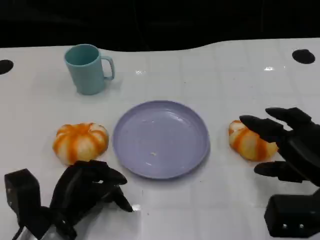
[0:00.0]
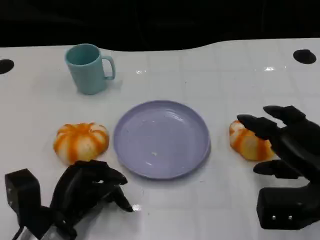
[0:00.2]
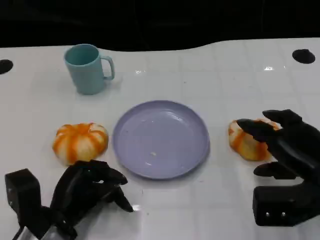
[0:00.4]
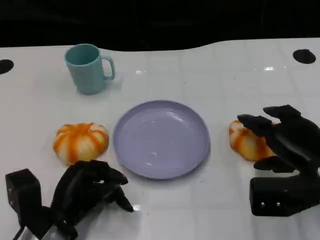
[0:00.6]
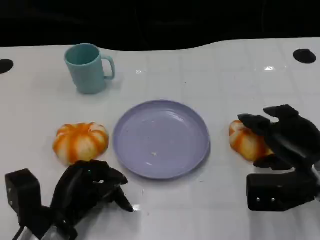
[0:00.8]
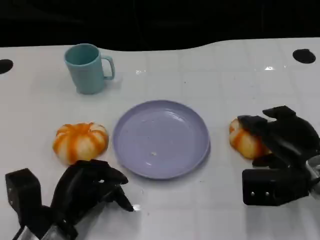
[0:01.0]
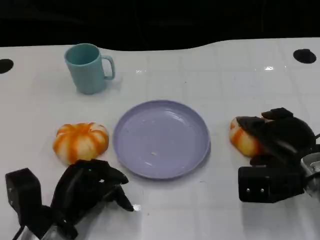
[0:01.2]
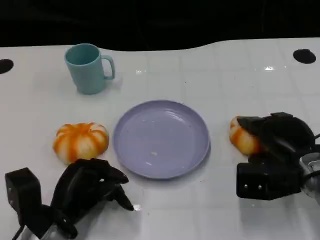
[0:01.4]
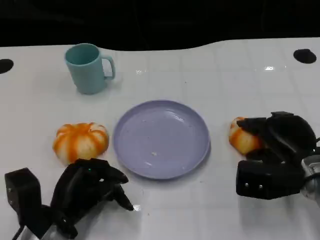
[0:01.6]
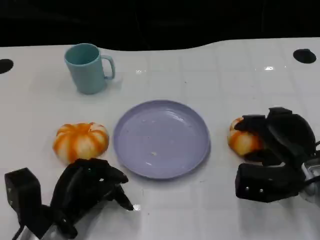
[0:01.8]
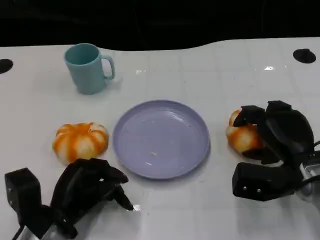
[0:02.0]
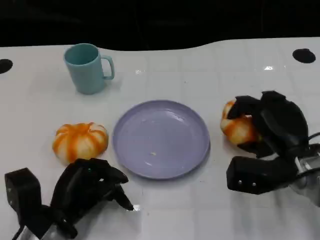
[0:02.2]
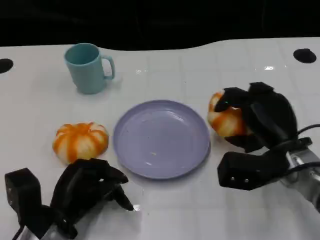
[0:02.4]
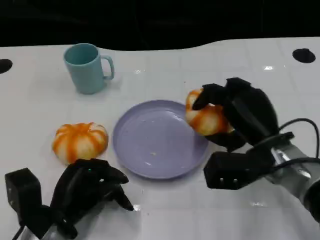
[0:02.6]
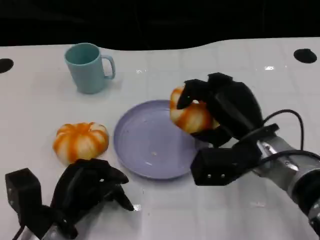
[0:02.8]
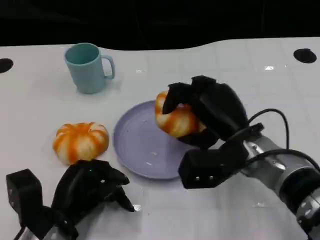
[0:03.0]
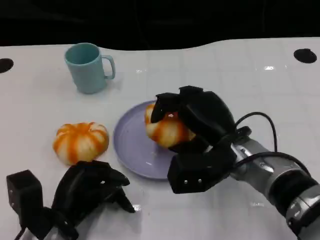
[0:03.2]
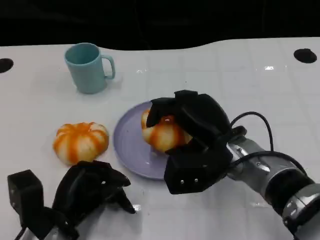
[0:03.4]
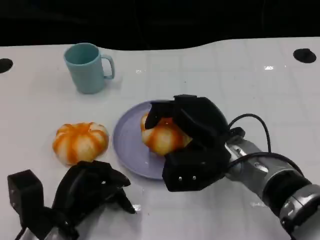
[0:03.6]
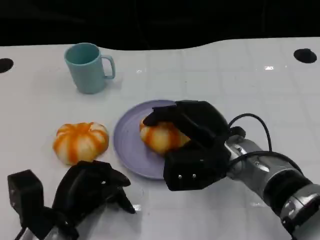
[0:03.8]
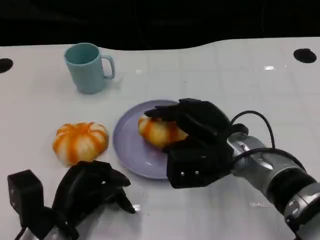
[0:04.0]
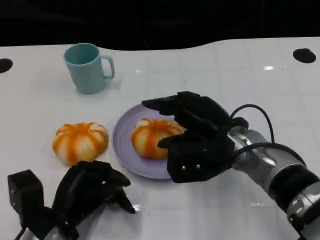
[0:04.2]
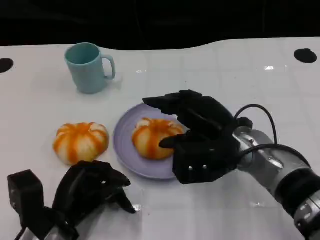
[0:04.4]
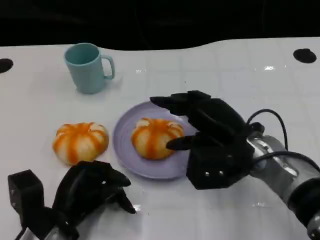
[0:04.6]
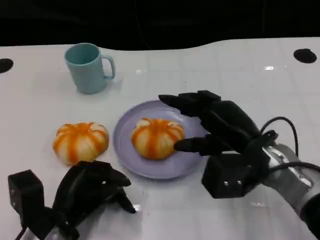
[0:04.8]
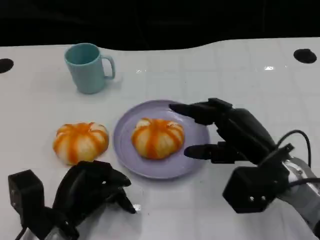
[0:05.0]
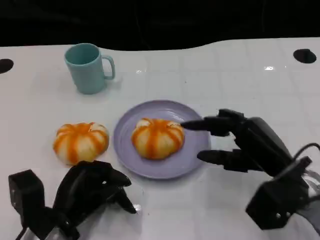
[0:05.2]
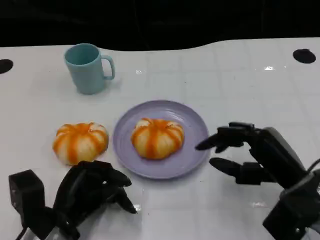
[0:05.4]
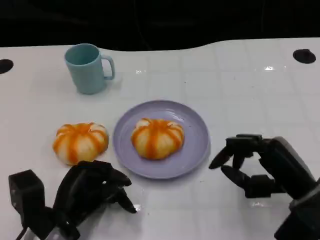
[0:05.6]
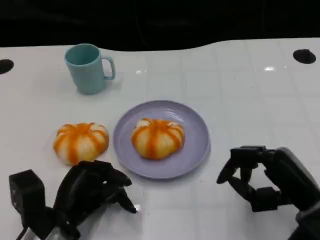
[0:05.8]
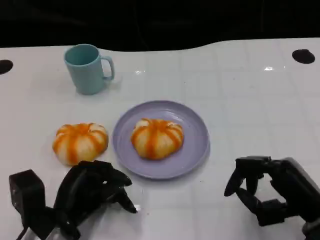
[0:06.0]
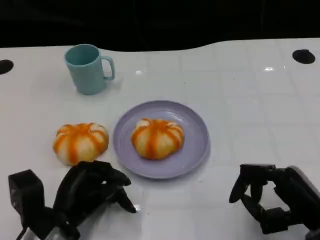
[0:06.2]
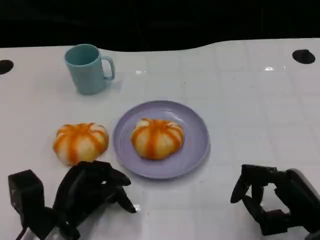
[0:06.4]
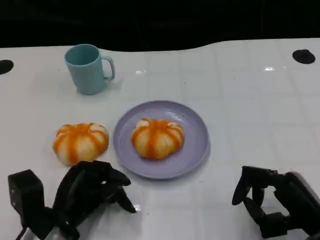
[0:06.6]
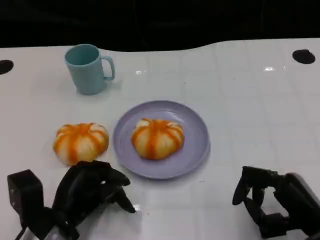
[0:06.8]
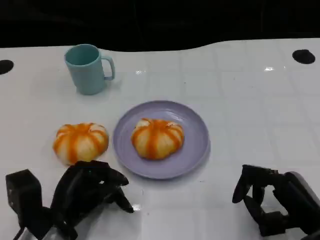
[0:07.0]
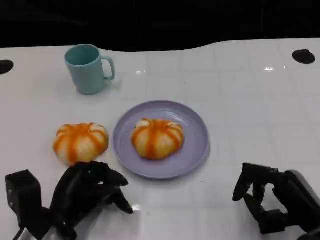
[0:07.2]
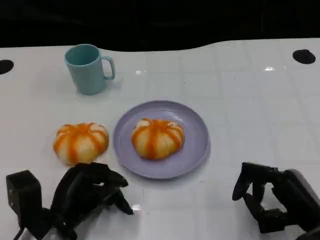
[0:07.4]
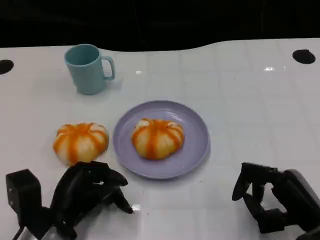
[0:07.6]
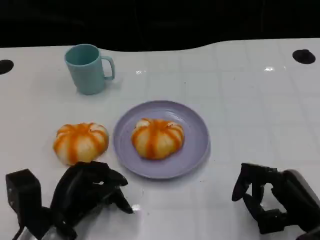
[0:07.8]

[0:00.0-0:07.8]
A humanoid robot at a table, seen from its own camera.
Task of the whole recording: Grasp the bread from the table and place it into the plate.
0:00.0 to 0:01.6: The right hand goes approximately 5 cm forward.
0:01.6 to 0:03.2: The right hand travels to the left by roughly 10 cm.
0:03.2 to 0:04.6: The hands stay close to where they were, moving slightly.
0:04.6 to 0:06.2: The right hand travels to the right, backward and downward by roughly 15 cm.
0:06.2 to 0:07.8: The hands move only a little.

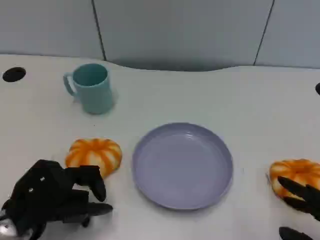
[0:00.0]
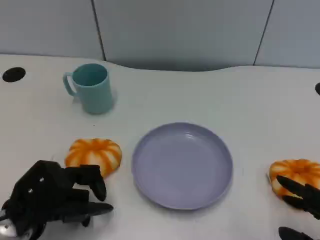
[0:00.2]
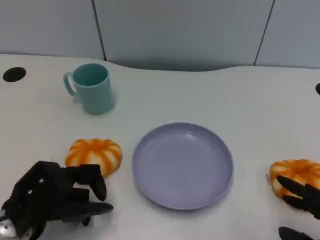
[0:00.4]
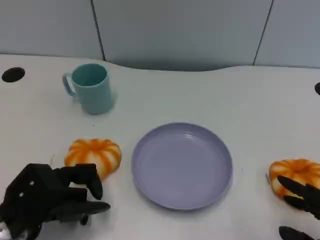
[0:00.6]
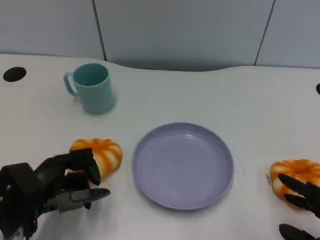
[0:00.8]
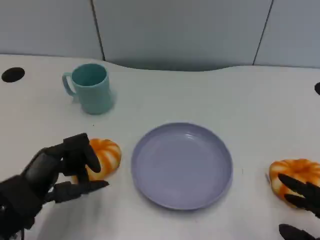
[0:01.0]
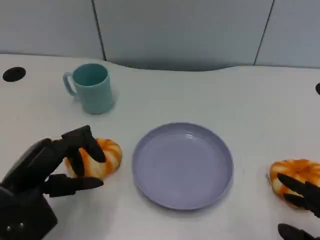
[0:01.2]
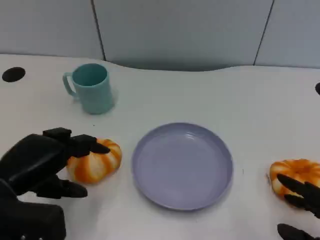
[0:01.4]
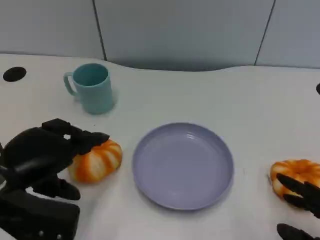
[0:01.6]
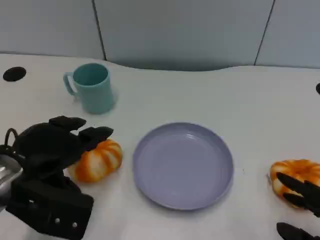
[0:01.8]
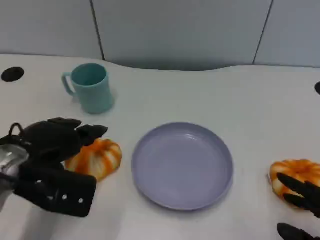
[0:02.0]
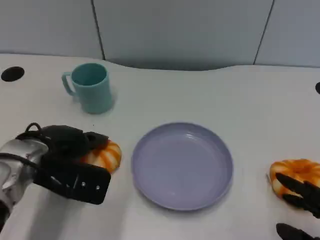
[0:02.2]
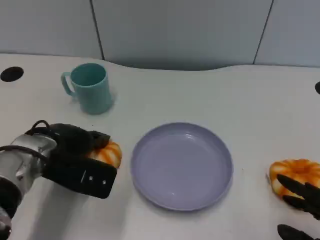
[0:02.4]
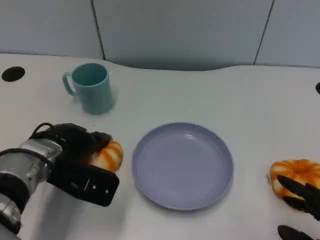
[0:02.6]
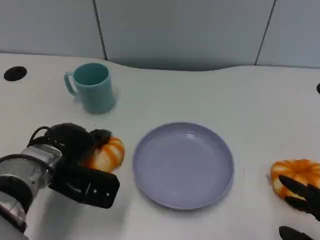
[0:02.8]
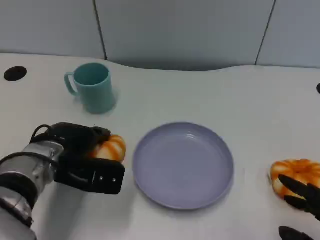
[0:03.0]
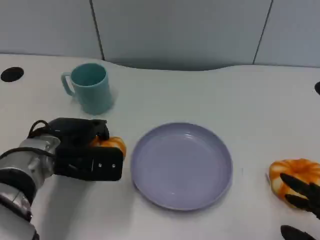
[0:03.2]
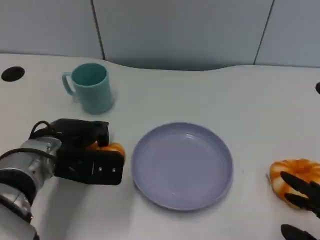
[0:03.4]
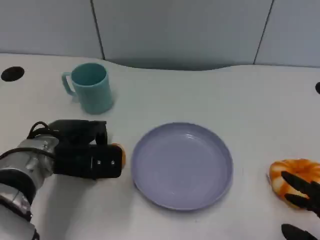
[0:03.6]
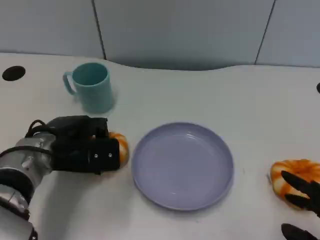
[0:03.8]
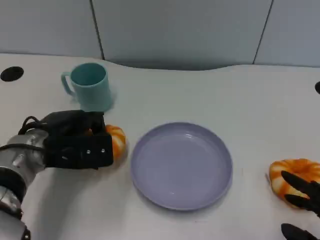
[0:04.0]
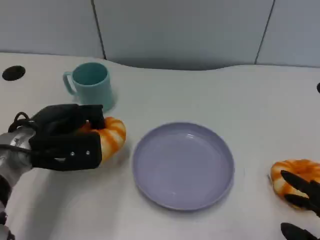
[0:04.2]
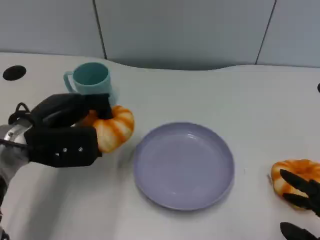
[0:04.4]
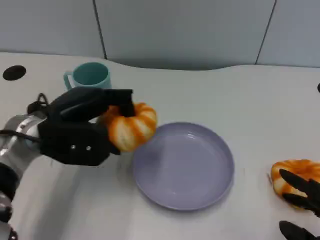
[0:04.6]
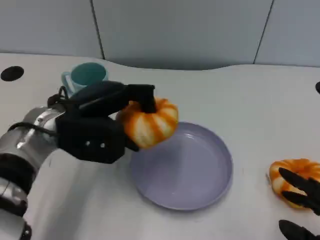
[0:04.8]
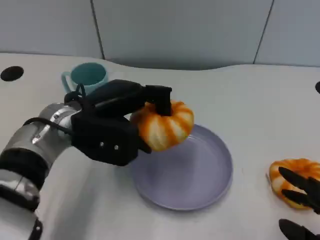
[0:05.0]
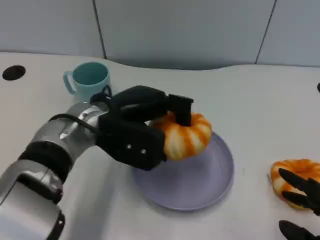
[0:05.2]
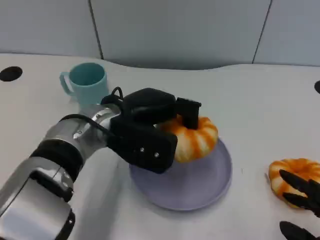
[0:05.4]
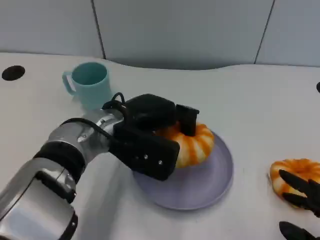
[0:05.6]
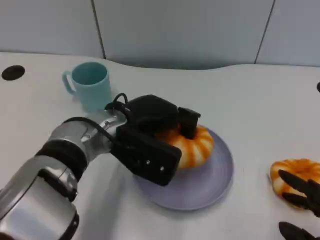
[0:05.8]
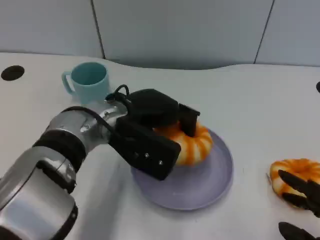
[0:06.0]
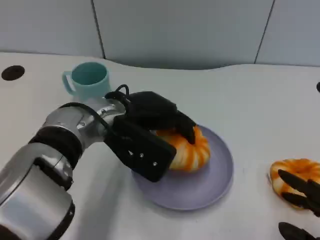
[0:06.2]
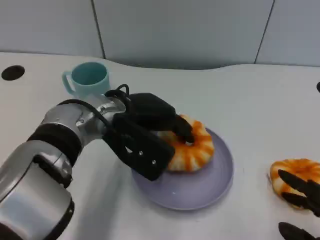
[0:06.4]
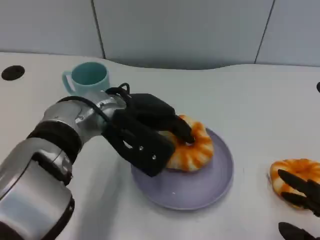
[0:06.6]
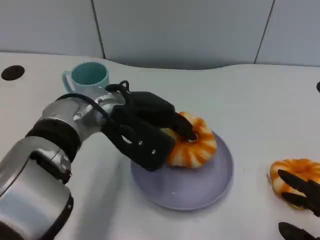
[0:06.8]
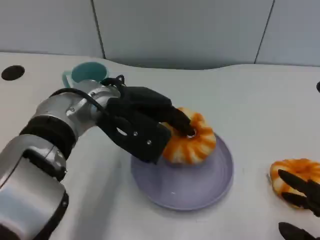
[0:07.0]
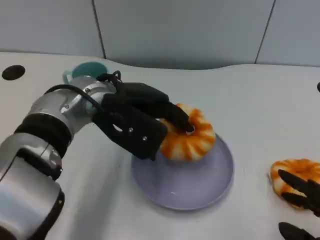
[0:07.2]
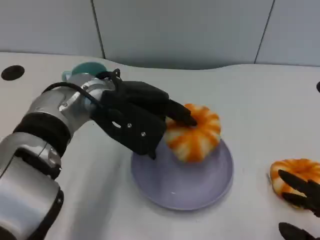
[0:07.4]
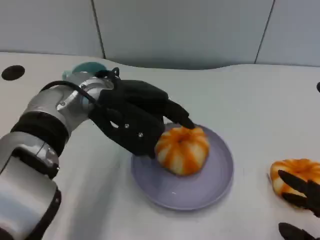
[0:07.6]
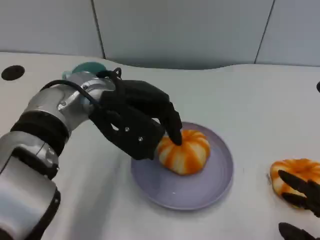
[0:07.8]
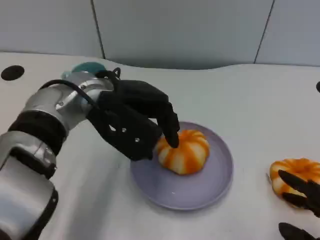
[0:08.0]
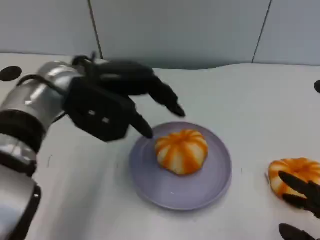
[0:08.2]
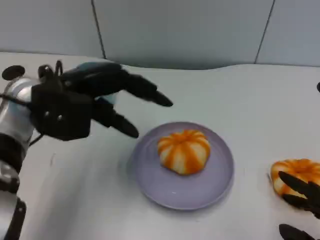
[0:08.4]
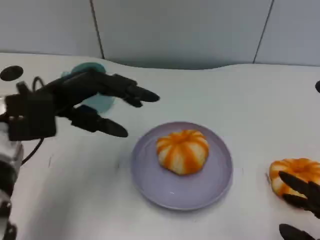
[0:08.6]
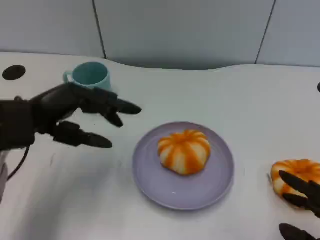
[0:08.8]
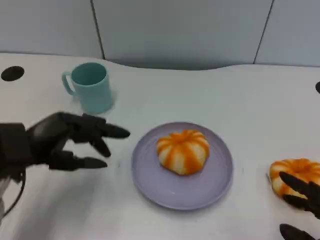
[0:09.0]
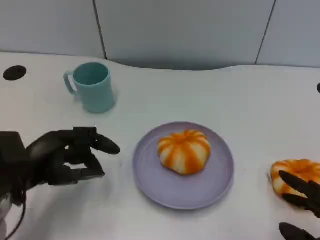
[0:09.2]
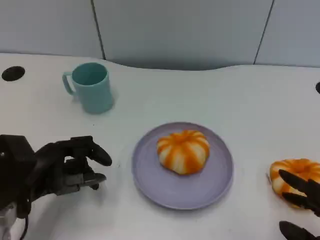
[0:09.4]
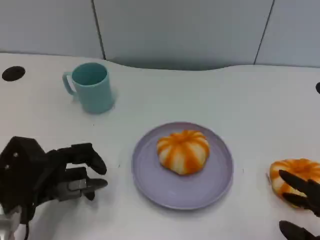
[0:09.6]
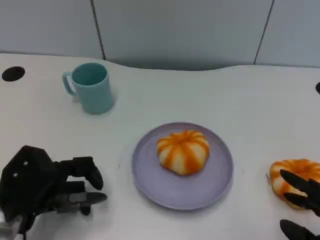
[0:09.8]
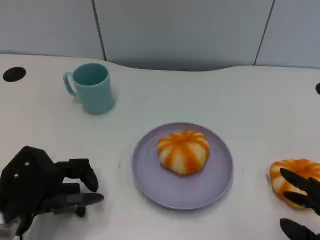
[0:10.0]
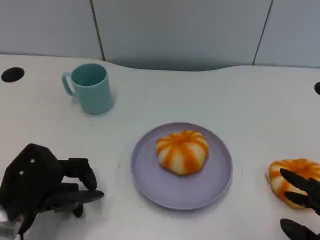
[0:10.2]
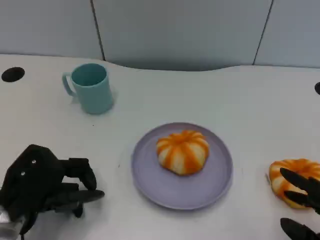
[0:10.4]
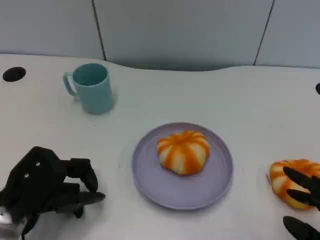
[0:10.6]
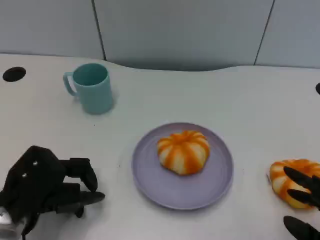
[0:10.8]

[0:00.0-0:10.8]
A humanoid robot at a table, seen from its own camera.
Task of the whole recording: Grasp the bread from the table and place it into the plate.
0:00.0 to 0:01.6: The left hand moves upward, about 5 cm.
0:01.6 to 0:03.0: The left hand travels forward, to the right and downward by about 10 cm.
0:03.0 to 0:04.6: The left hand moves upward, about 5 cm.
0:04.6 to 0:06.2: The left hand heads to the right, covering some 10 cm.
0:06.2 to 0:07.8: There are only small adjustments of the hands.
0:07.8 to 0:09.2: The left hand shifts roughly 20 cm to the left, downward and backward.

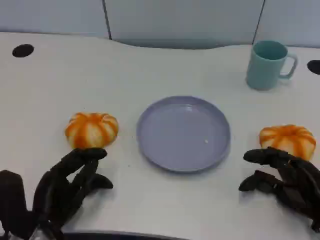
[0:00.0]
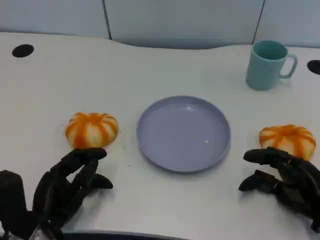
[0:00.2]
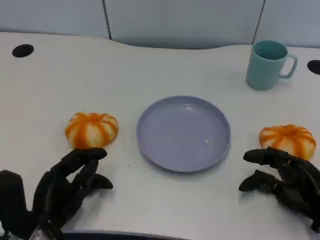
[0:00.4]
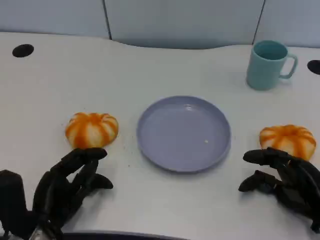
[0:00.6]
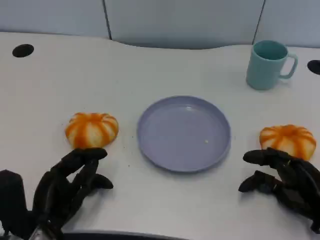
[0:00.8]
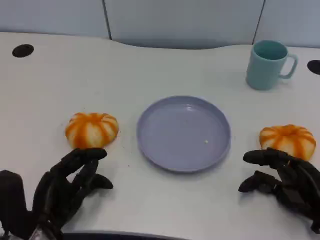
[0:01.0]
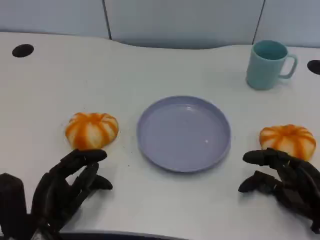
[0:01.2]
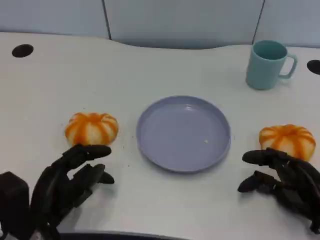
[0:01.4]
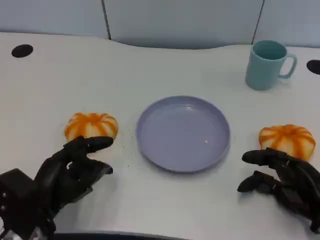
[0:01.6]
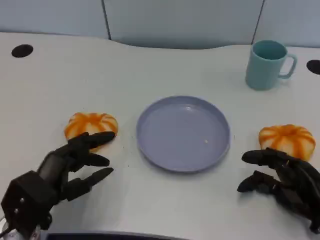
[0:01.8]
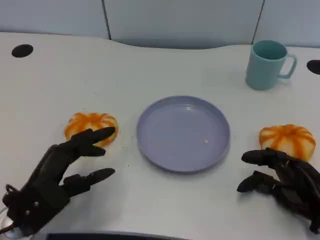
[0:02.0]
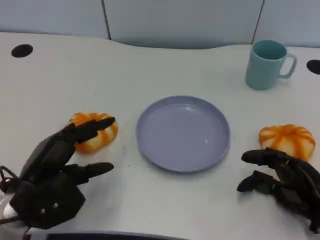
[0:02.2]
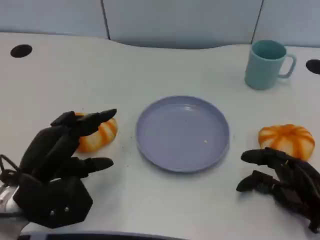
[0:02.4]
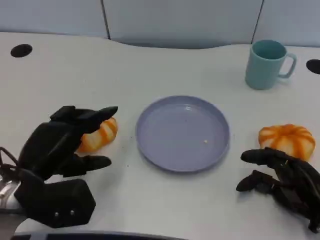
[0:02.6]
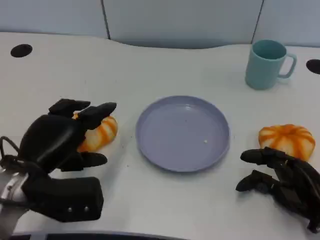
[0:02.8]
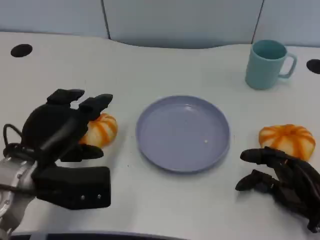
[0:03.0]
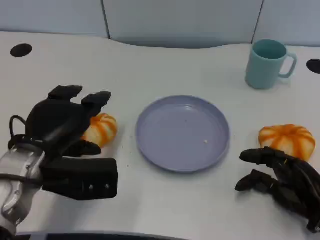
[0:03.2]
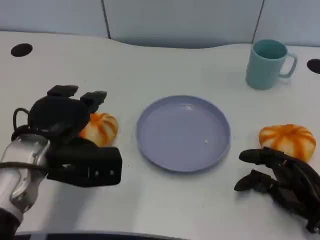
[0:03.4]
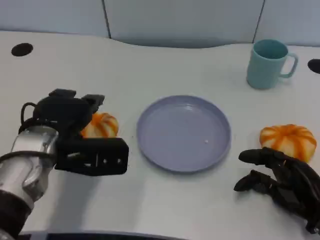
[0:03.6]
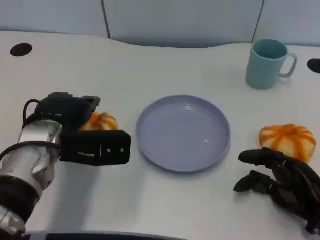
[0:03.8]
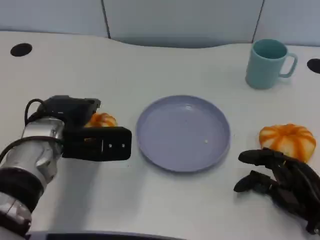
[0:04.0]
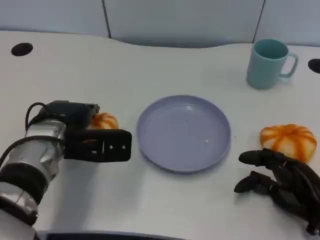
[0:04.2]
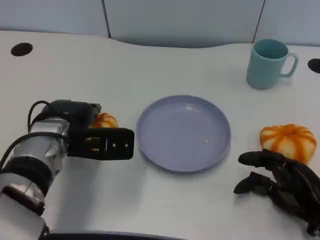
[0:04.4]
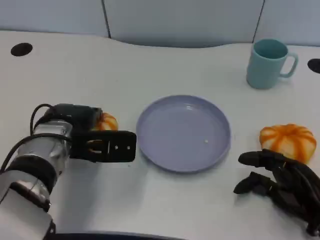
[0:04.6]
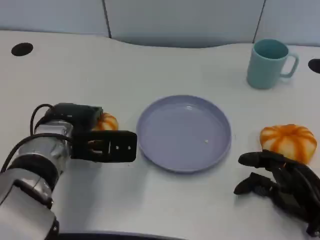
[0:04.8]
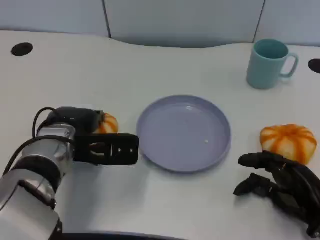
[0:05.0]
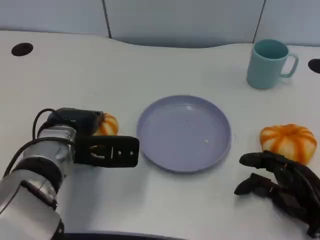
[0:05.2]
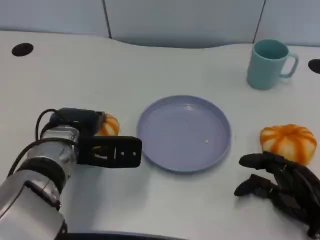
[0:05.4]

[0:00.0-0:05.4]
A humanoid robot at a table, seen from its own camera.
Task of the whole recording: Grasp the bread from the table and place it into the plate.
0:00.0 to 0:01.4: The hands make only small movements.
0:01.4 to 0:02.8: The left hand moves upward, about 10 cm.
0:02.8 to 0:04.0: The left hand travels forward by about 5 cm.
0:04.0 to 0:05.4: The hands make only small movements.
